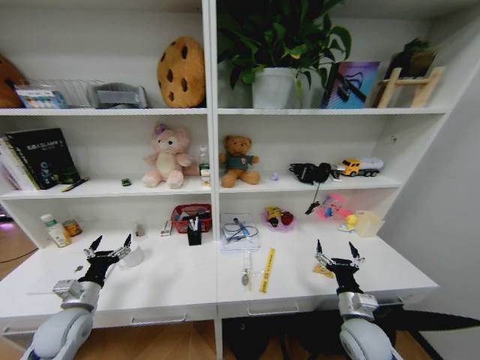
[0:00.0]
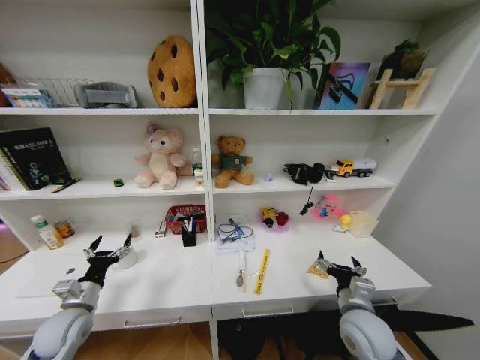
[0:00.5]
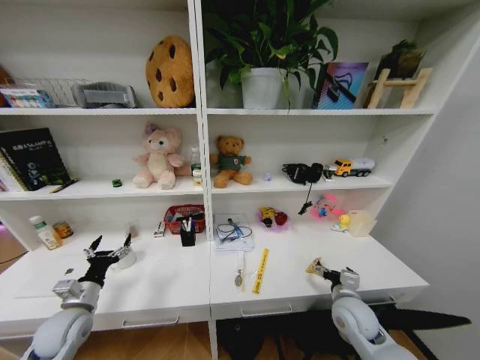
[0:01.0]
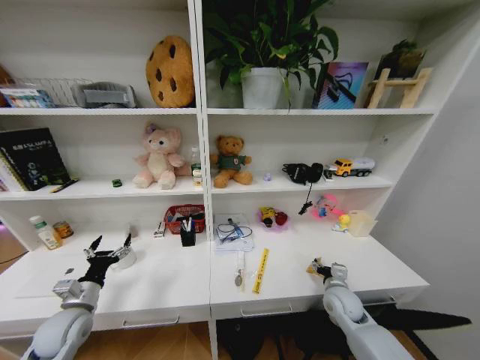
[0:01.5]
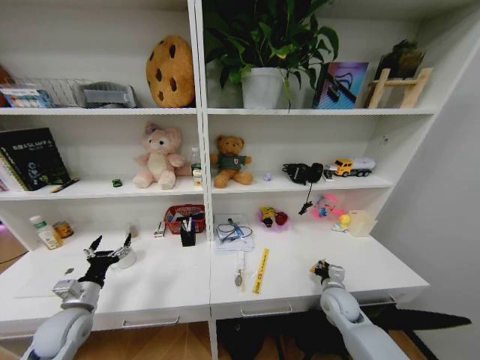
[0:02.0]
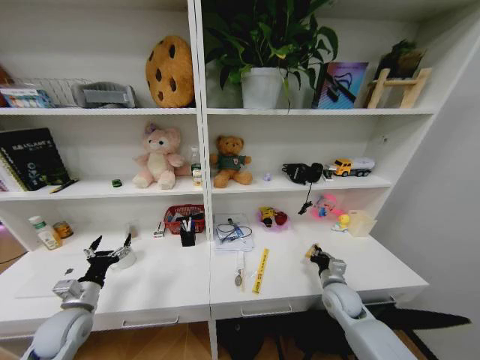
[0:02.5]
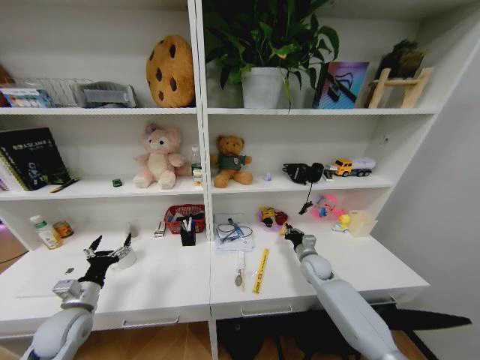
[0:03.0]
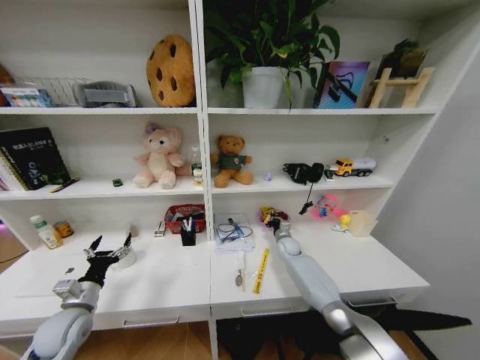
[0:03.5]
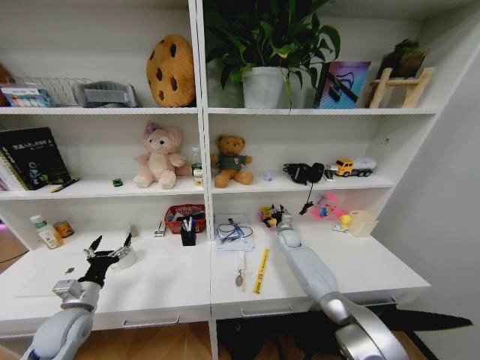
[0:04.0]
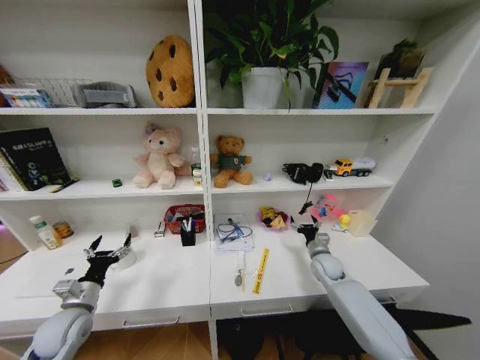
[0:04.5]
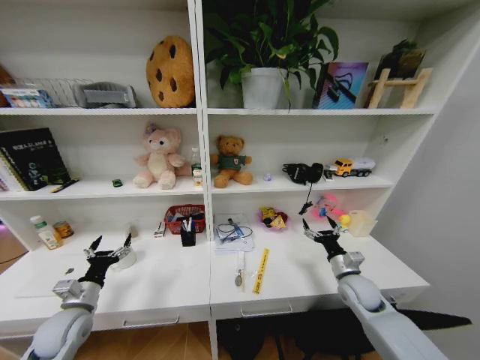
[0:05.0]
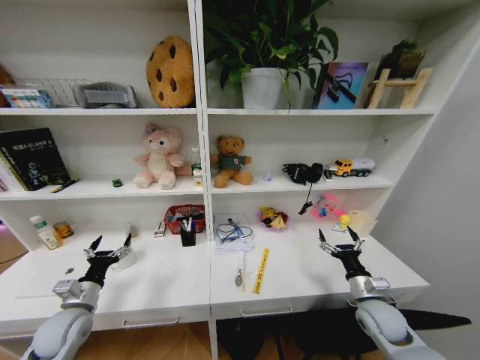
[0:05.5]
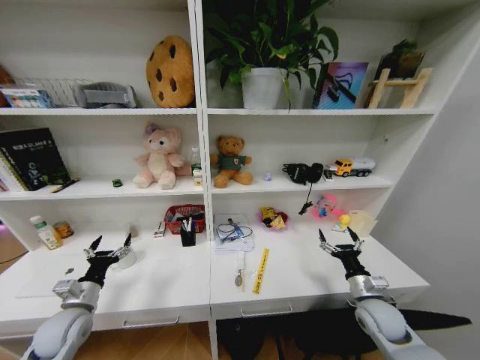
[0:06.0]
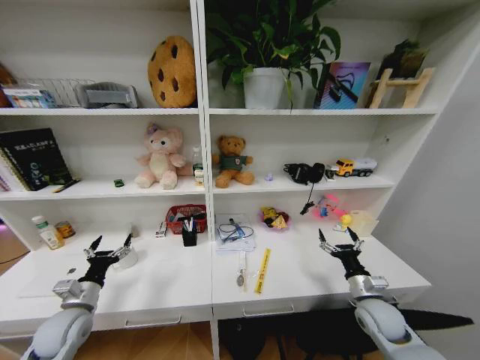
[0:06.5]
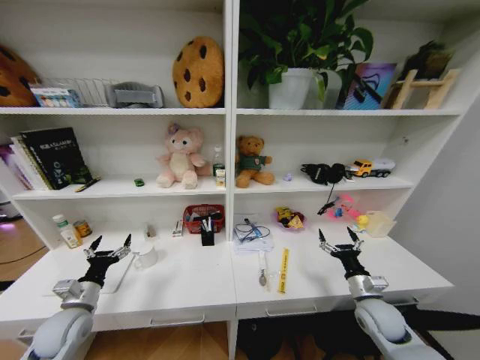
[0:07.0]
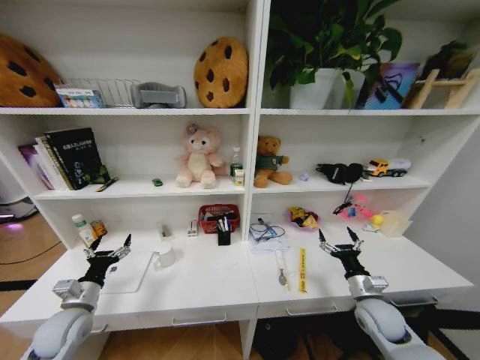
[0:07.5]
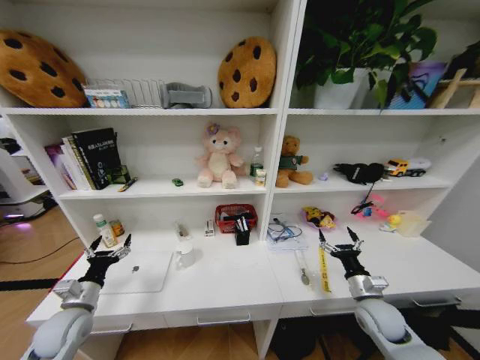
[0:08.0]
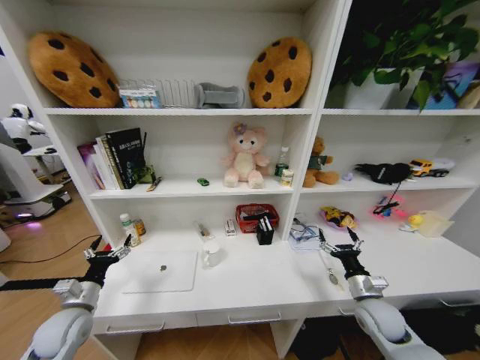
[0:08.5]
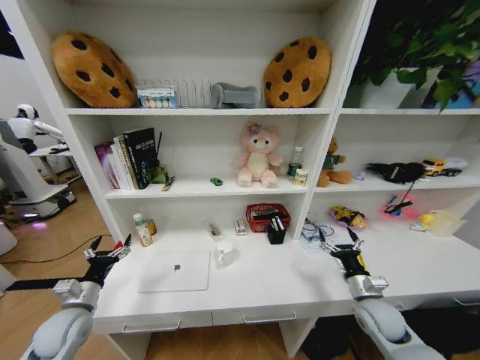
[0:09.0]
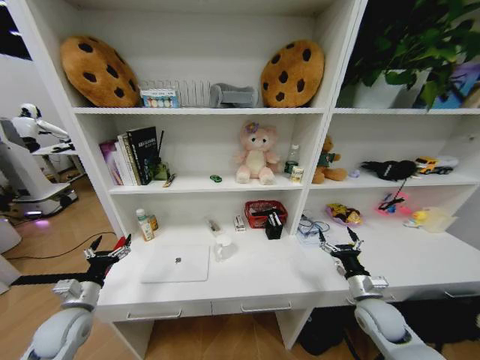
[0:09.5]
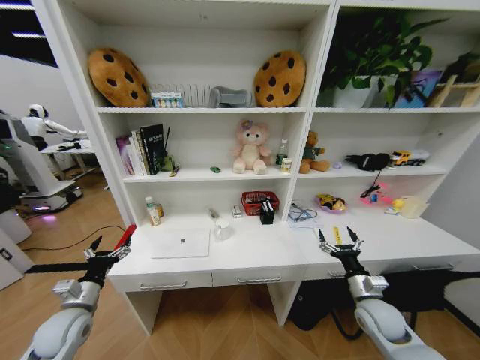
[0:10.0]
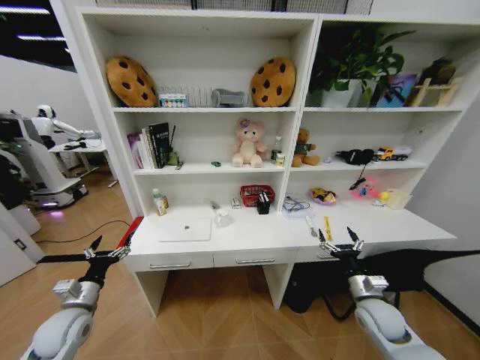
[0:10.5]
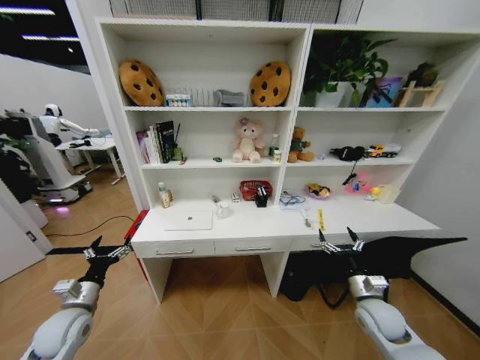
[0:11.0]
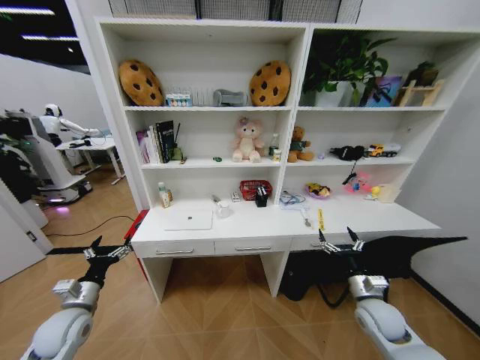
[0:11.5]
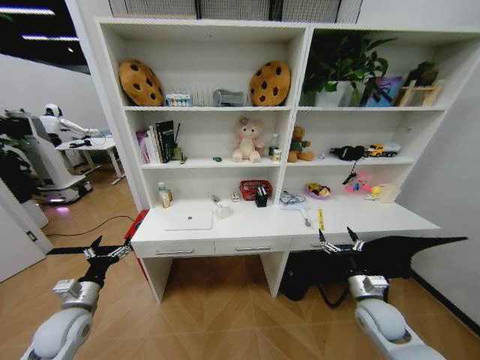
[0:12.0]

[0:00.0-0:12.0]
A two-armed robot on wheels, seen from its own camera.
Task of the whole recording: Organize the objects on the table.
0:00.0 to 0:02.0: The right gripper moves forward, approximately 10 cm, and closes up.
0:02.0 to 0:04.0: The right gripper moves forward, about 25 cm.
0:04.0 to 0:06.0: The right gripper goes roughly 35 cm backward and to the right, and opens up.

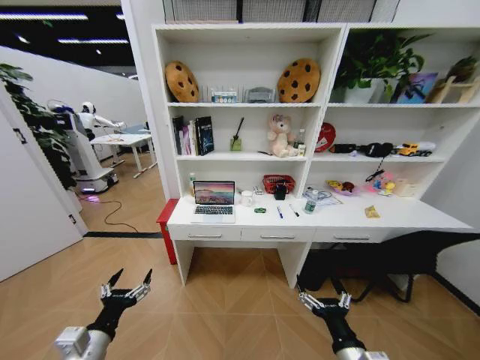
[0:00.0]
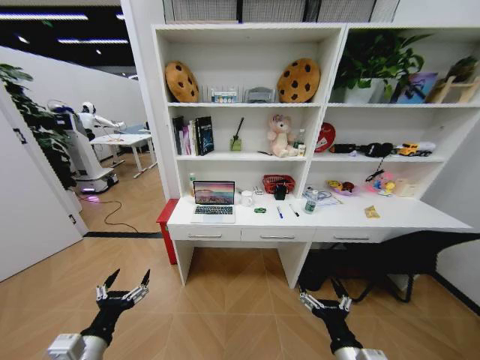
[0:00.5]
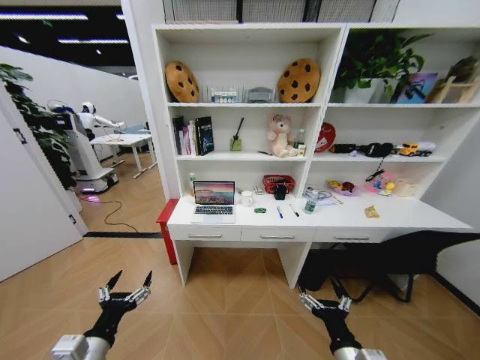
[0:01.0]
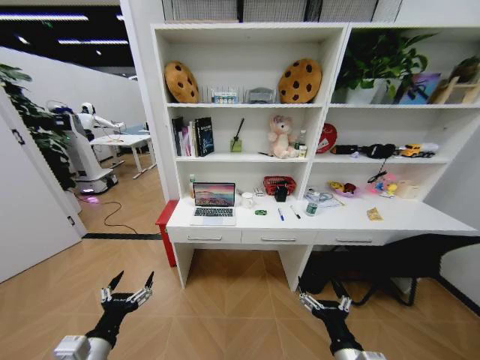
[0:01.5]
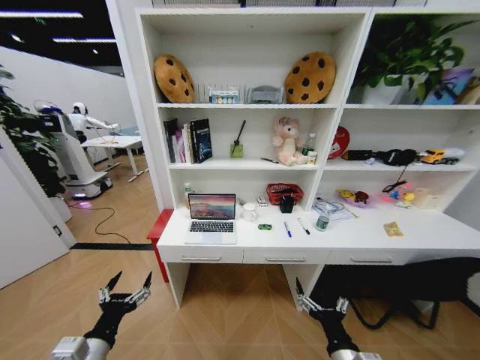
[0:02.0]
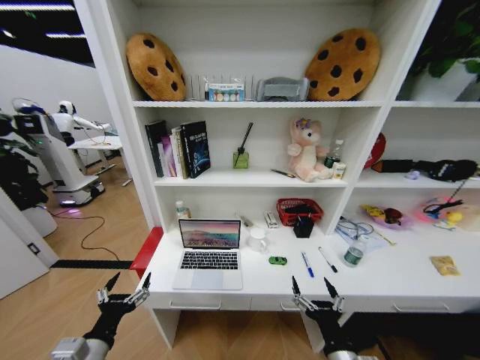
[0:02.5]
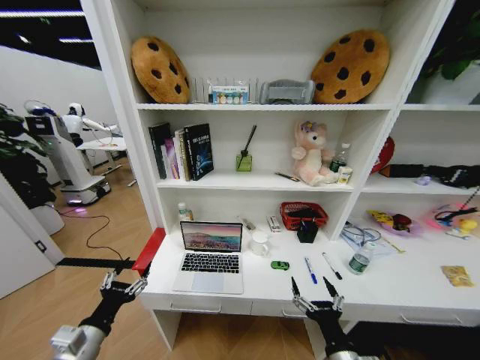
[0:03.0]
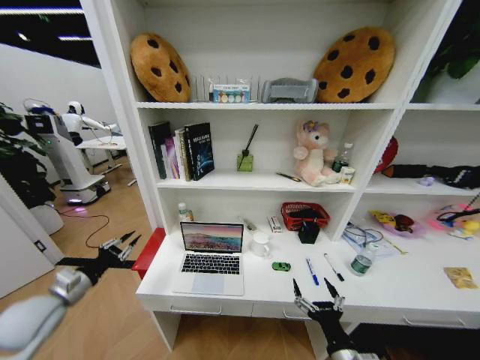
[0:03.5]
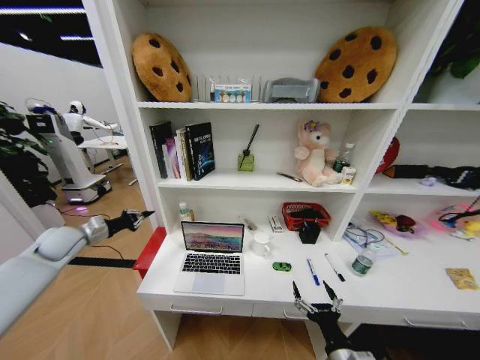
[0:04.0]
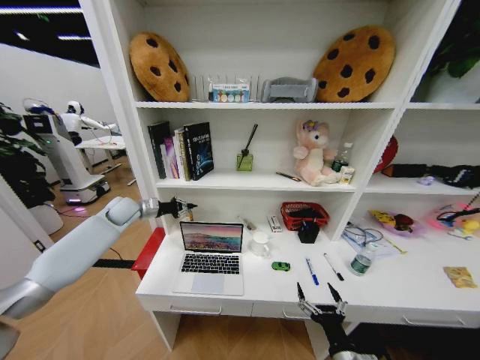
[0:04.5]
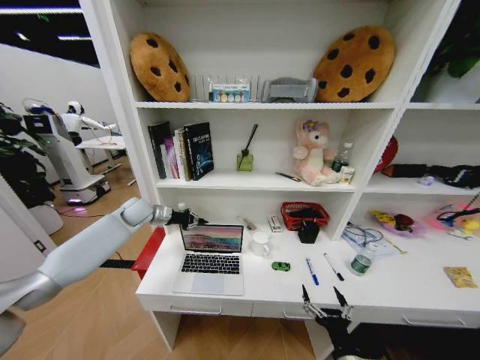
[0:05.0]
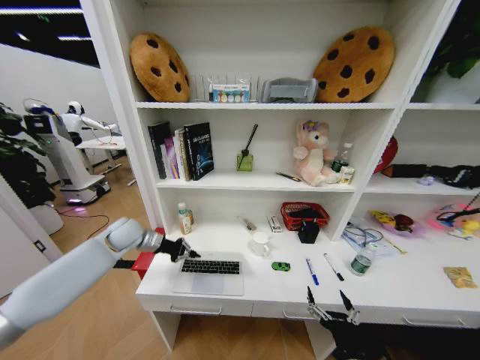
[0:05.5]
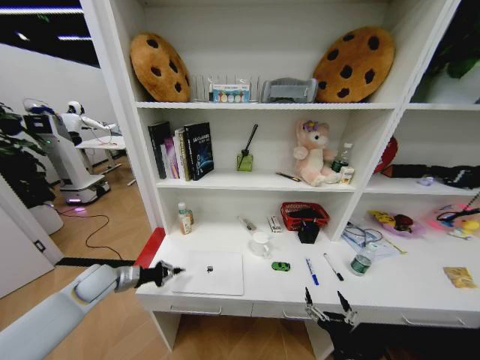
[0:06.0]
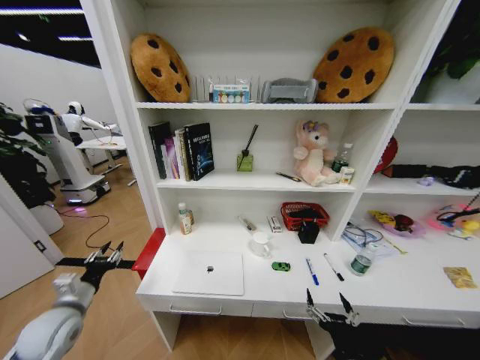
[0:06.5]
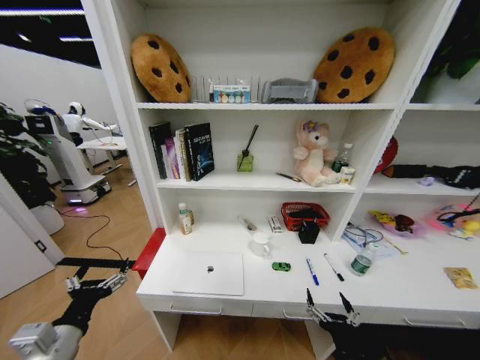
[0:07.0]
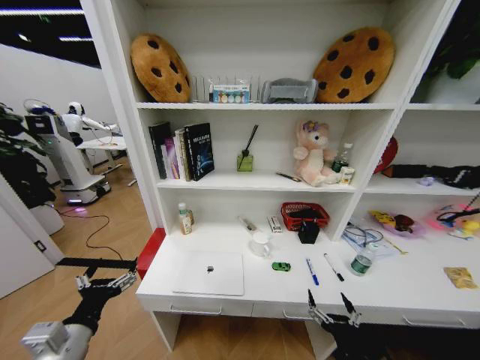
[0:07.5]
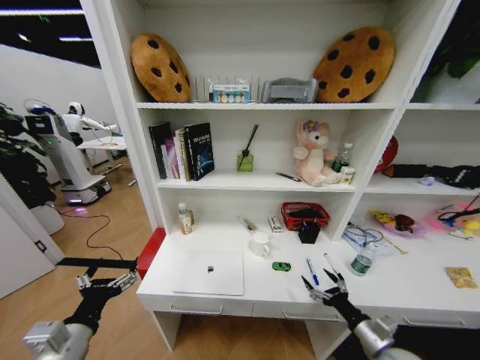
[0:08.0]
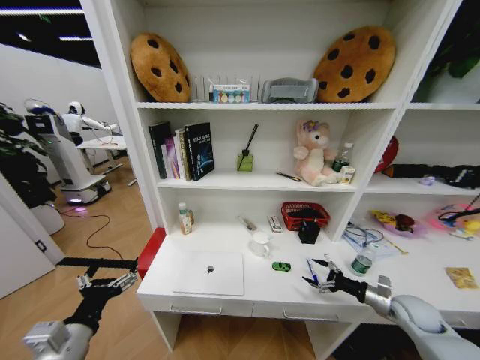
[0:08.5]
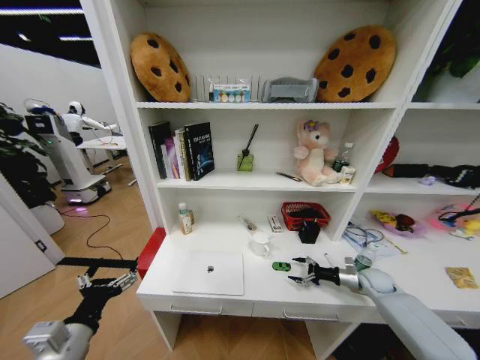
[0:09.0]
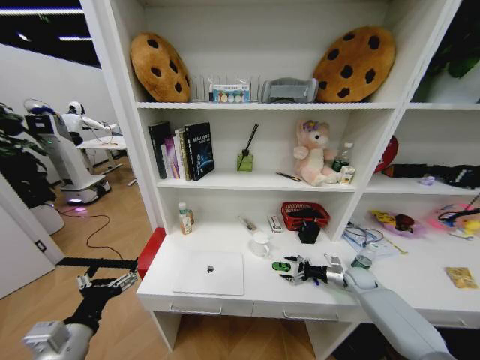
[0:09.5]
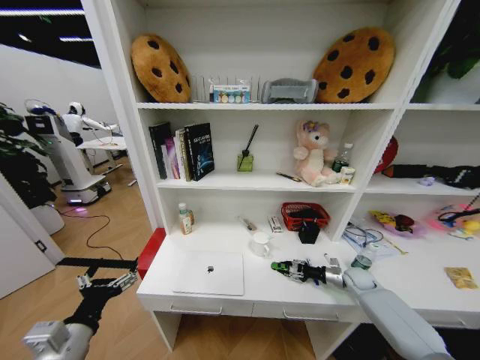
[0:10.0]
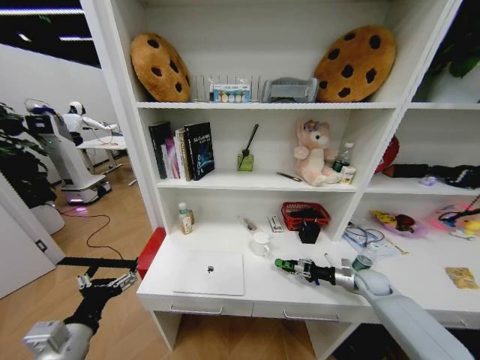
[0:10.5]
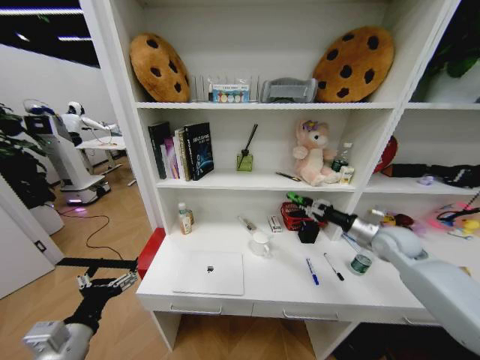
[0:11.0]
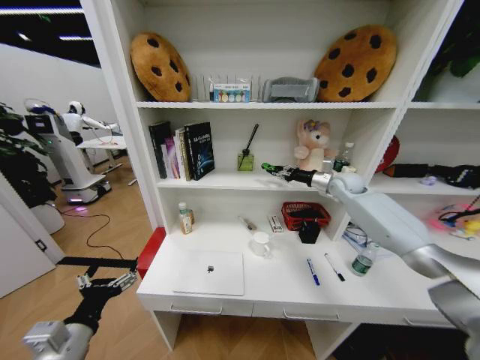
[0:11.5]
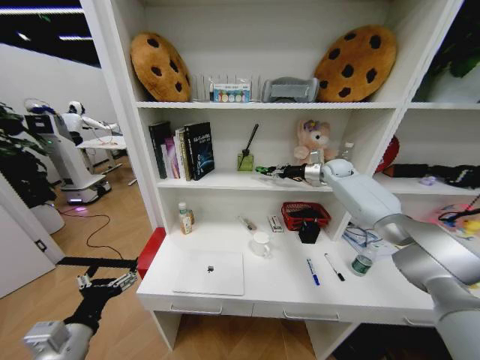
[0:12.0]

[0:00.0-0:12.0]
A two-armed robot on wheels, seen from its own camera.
Task of the whole recording: Organize the objects on the table.
0:02.0 to 0:04.0: The left gripper moves forward and to the left, about 35 cm, and closes up.
0:04.0 to 0:06.0: The left gripper moves downward and to the right, some 15 cm, and goes forward and returns, about 15 cm each way.
0:06.0 to 0:08.0: The left gripper heads backward, covering approximately 25 cm, and opens. Meanwhile the right gripper heads to the right and forward, covering approximately 15 cm.
0:08.0 to 0:10.0: The right gripper travels forward by roughly 25 cm, and closes up.
0:10.0 to 0:12.0: The right gripper travels upward and forward by approximately 40 cm.

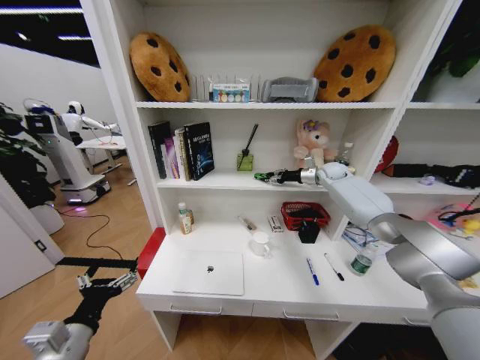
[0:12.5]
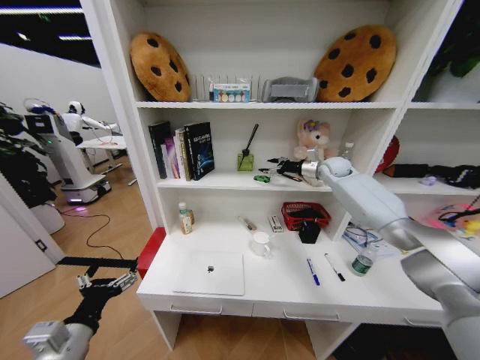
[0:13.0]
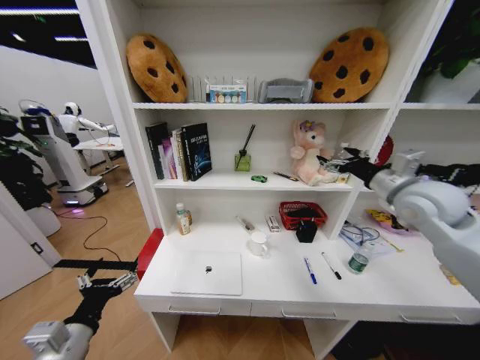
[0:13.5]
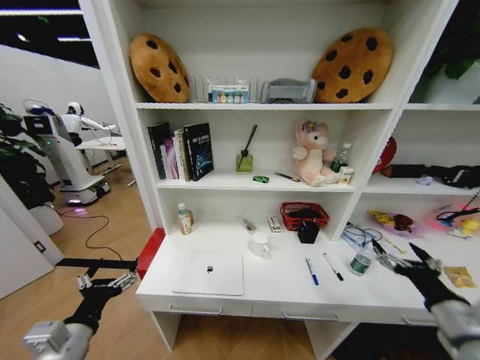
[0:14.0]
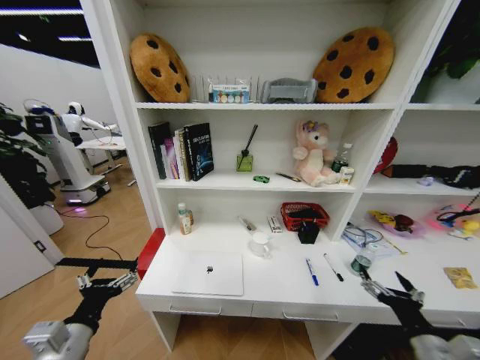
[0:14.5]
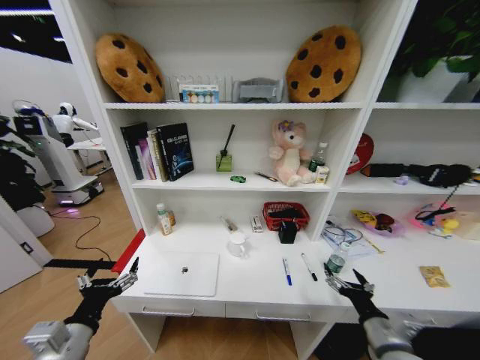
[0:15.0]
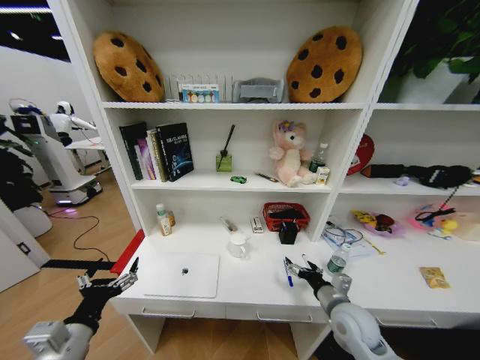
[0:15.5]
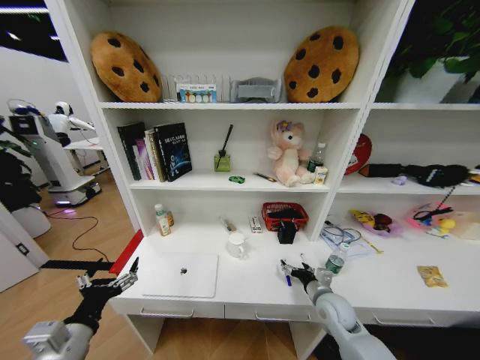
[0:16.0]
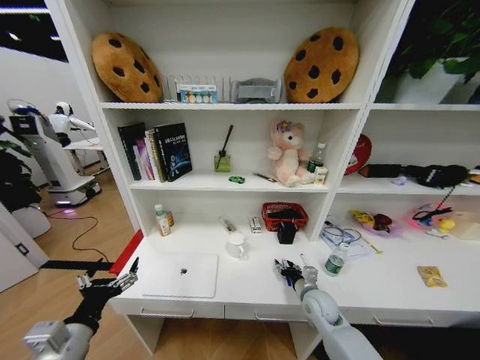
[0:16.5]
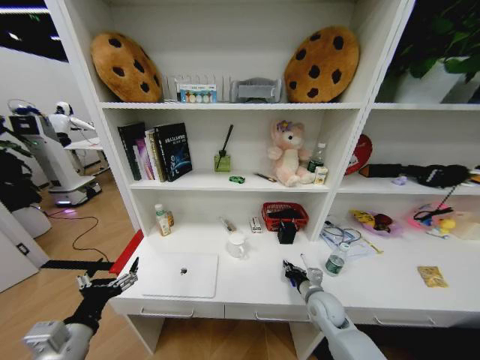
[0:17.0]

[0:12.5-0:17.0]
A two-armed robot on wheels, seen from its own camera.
Task of the whole recording: Organize the objects on the table.
0:12.5 to 0:14.5: The right gripper is displaced backward by roughly 60 cm, and opens.
0:14.5 to 0:17.0: The right gripper is displaced forward, downward and to the left by about 25 cm, and closes its fingers.
